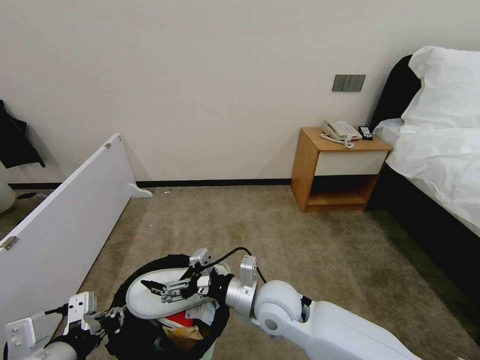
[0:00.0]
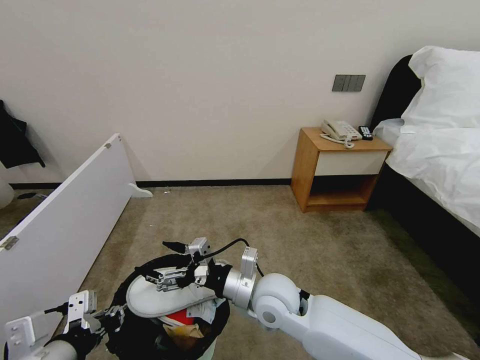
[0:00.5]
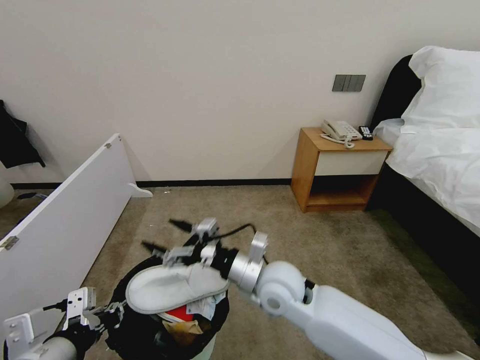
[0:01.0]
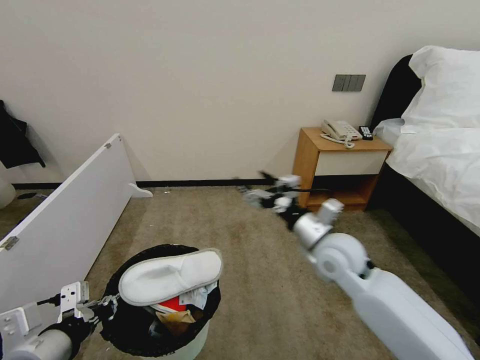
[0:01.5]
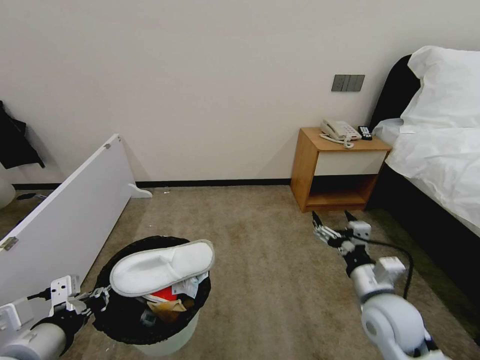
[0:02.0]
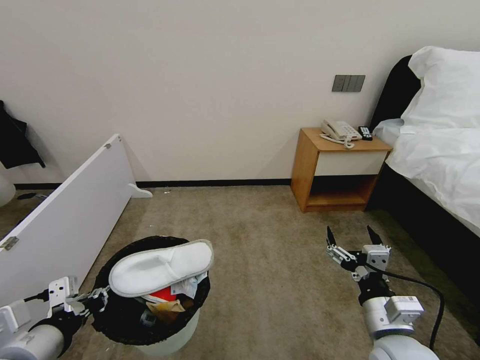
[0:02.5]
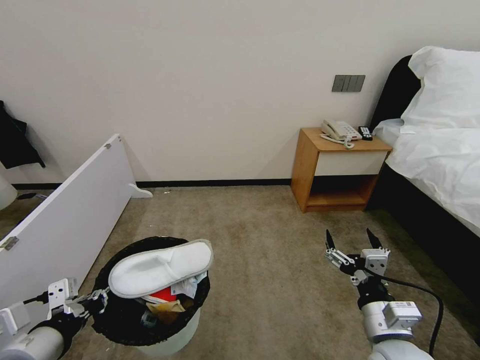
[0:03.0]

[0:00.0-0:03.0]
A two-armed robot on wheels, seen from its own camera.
Task of the whole recording: Pick up the trash bin, then pick up the garbage from the floor and place it into the trash bin.
0:00.0 to 0:01.5: The right gripper moves to the right and forward, roughly 15 cm.
0:01.5 to 0:03.0: The right gripper goes some 15 cm backward.
